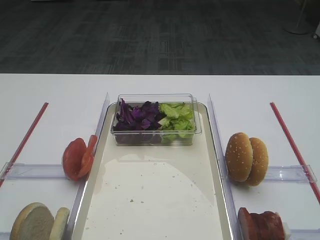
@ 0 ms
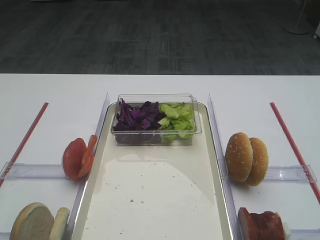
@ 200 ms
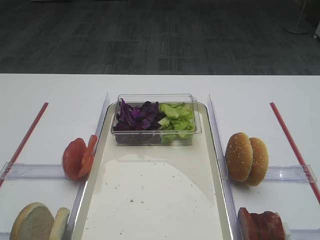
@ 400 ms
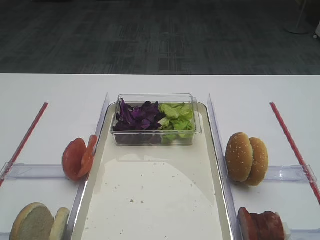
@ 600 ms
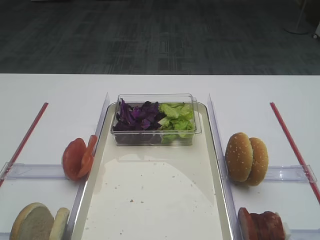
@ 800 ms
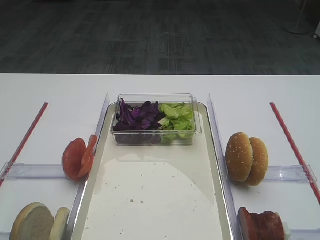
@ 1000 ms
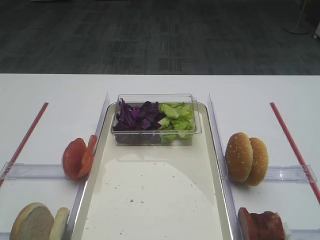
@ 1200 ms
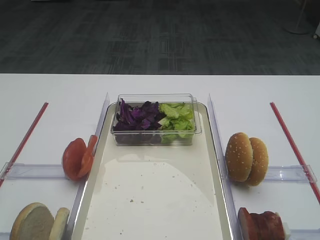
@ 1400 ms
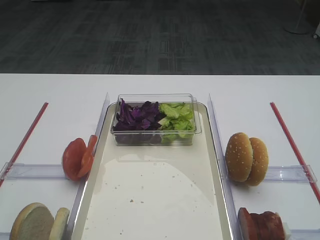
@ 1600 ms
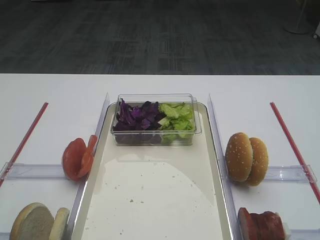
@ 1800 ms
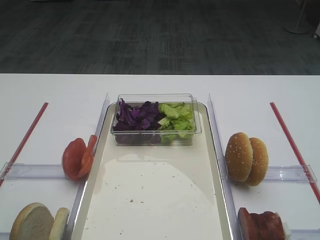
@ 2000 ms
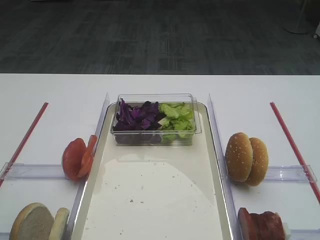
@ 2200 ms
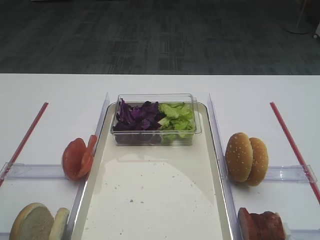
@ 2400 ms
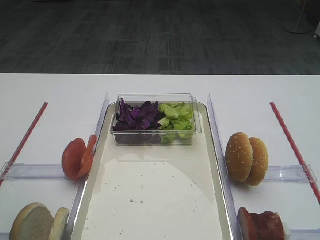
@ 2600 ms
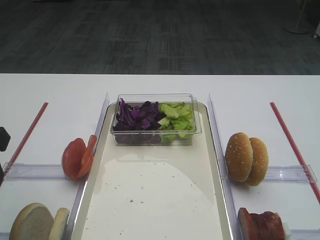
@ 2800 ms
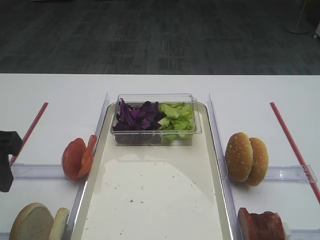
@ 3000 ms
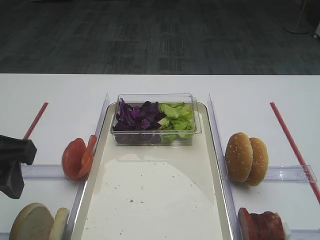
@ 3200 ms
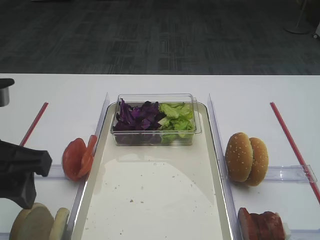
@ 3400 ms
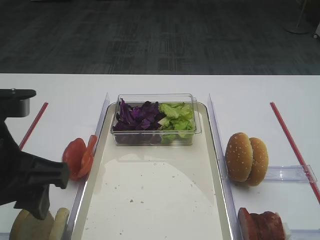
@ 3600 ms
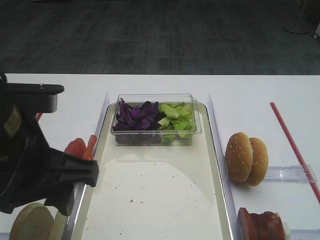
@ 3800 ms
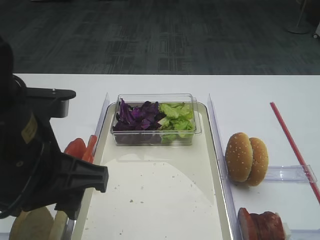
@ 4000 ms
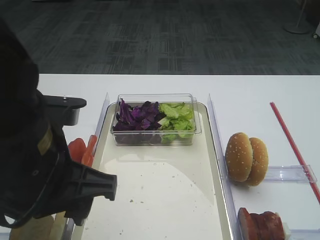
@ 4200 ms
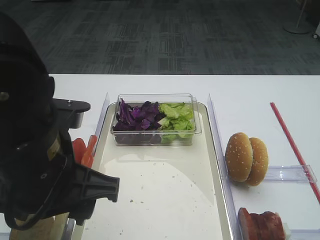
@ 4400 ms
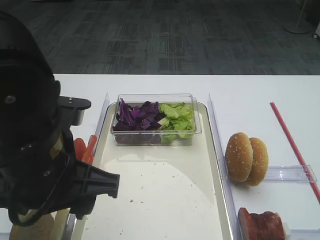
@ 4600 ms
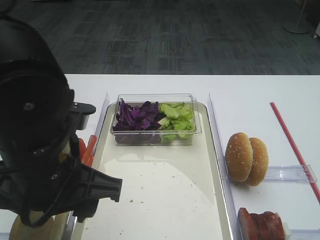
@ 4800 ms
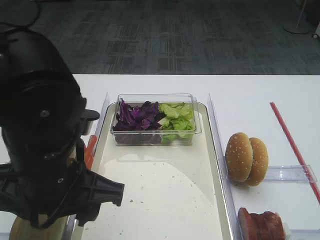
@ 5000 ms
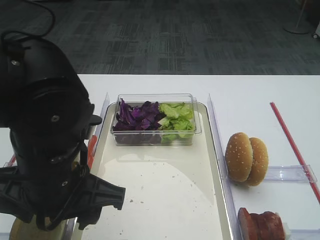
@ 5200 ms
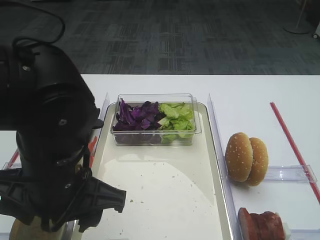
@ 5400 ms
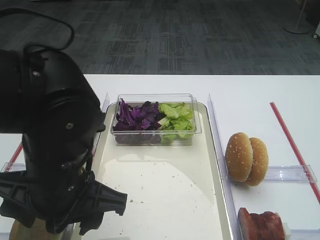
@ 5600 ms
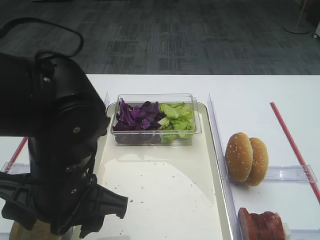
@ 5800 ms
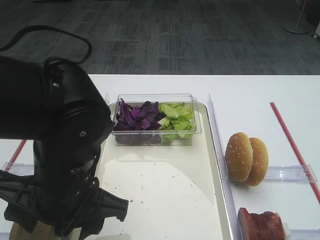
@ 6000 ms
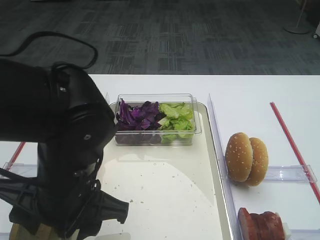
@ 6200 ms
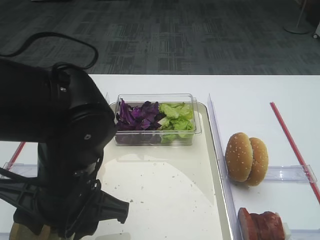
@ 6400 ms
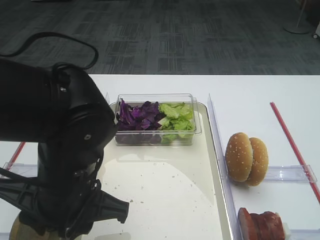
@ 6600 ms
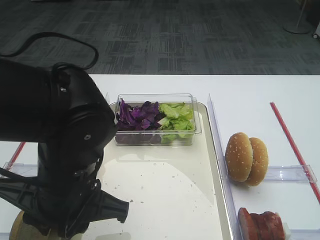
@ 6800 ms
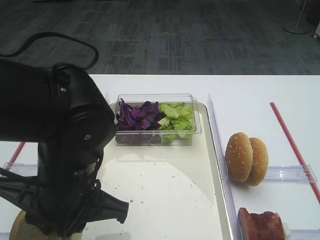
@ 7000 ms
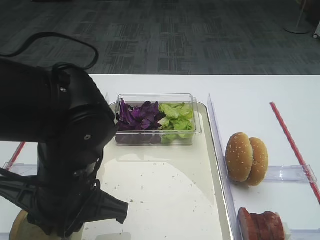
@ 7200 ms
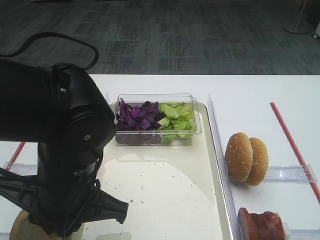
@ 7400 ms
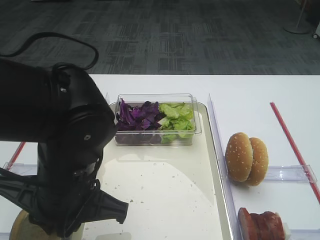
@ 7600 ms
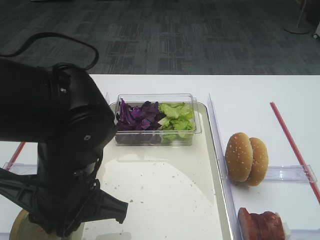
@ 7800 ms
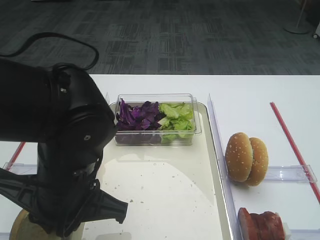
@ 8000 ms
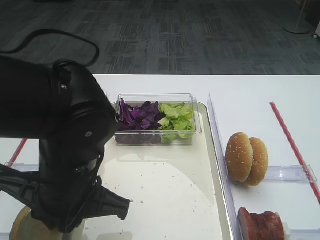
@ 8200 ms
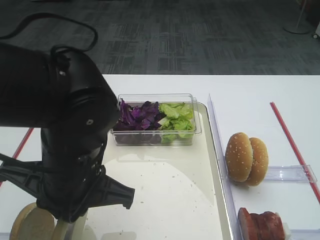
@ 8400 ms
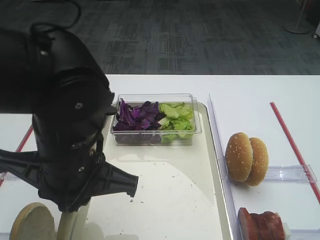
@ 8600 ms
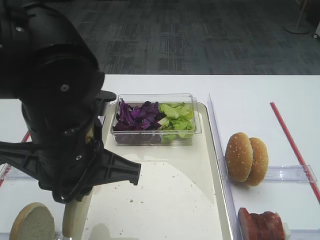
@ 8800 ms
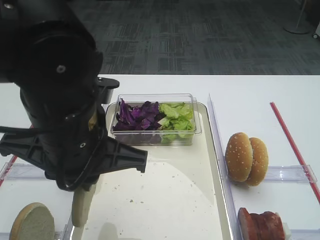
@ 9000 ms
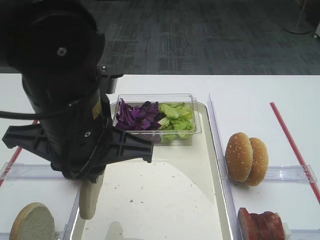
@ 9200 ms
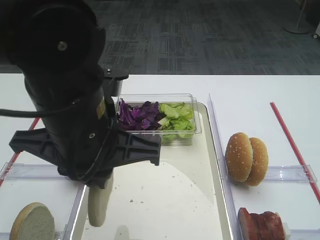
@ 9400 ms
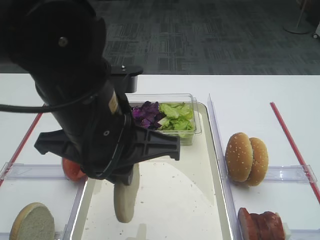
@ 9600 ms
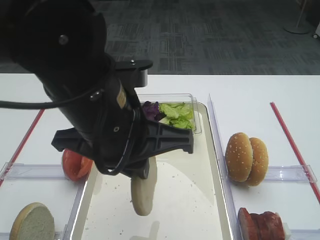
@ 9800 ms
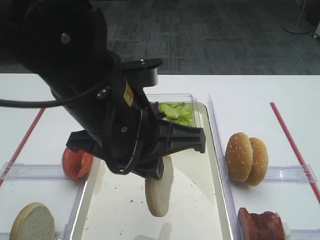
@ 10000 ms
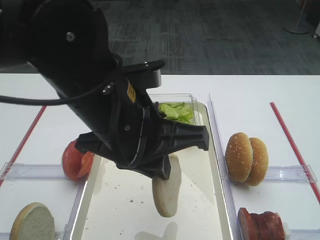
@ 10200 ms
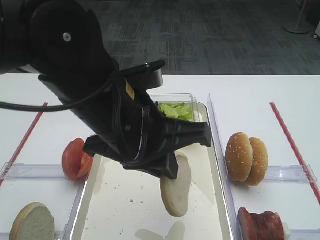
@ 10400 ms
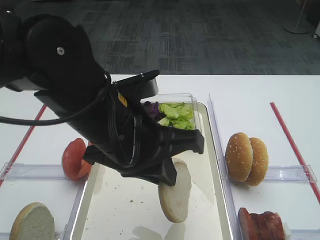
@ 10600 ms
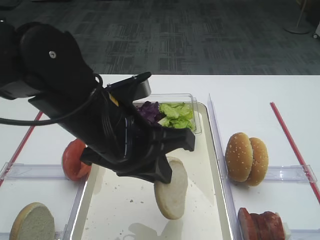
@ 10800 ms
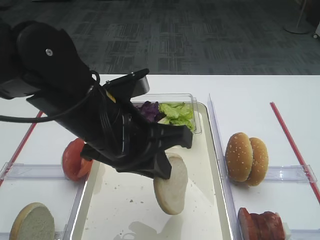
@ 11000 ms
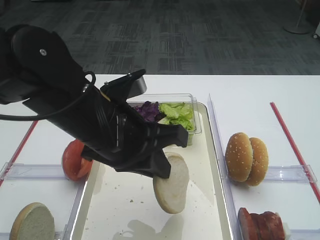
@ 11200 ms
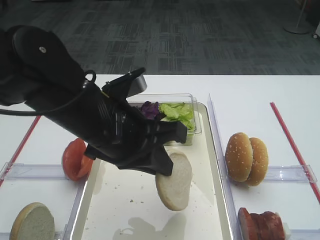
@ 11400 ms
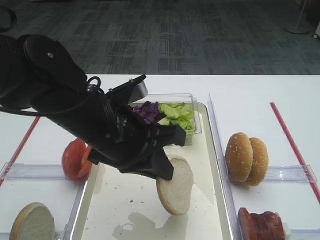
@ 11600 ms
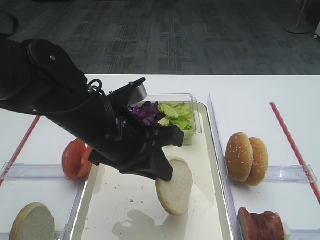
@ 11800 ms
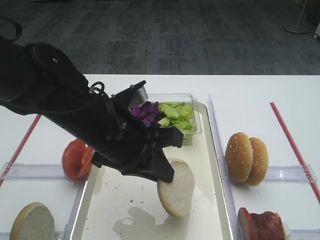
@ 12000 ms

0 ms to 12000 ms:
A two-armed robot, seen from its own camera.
Step, 0 ms to 9000 ms: Pick up the bread slice with the left gripper.
1600 ms to 3000 ms: The left gripper moves forward and to the right, roughly 10 cm.
3000 ms to 4400 ms: The left gripper travels to the right by about 10 cm.
4400 ms to 6000 ms: The left gripper shifts about 5 cm downward.
6000 ms to 7600 ms: The left gripper closes.
7600 ms to 9000 ms: The left gripper shifts approximately 5 cm upward.
10400 ms to 12000 ms: The left gripper is displaced downward by about 5 cm.

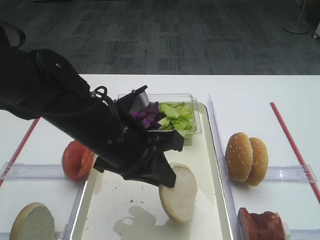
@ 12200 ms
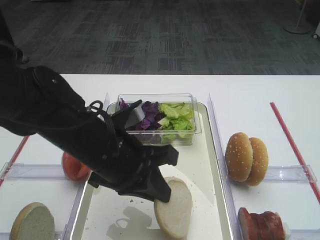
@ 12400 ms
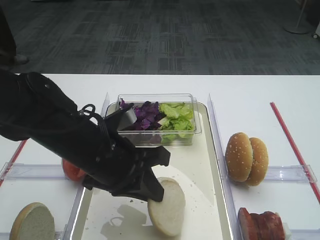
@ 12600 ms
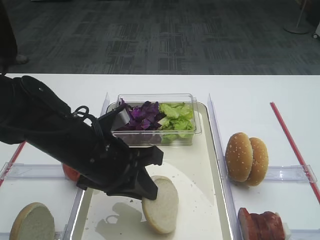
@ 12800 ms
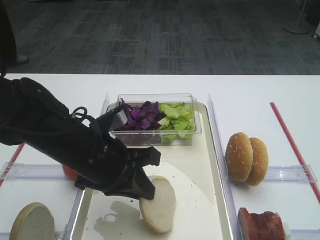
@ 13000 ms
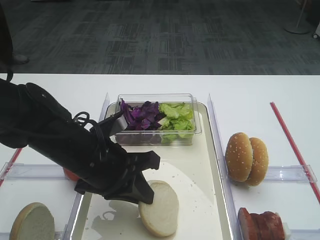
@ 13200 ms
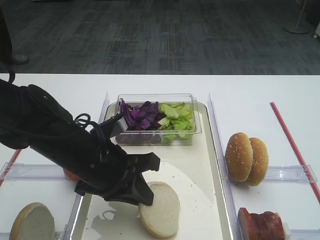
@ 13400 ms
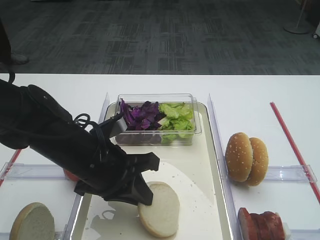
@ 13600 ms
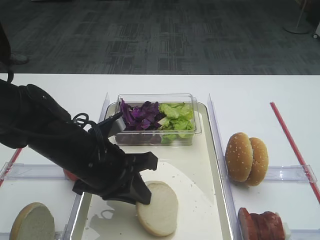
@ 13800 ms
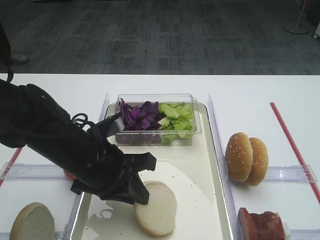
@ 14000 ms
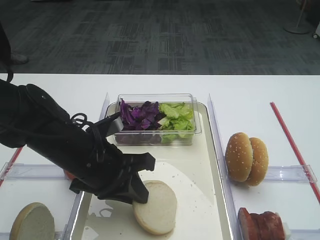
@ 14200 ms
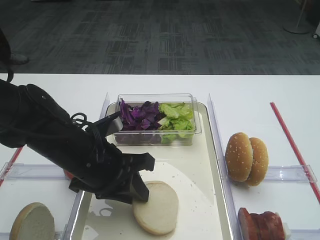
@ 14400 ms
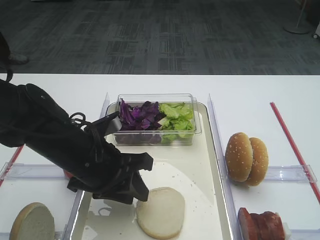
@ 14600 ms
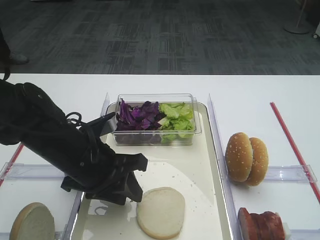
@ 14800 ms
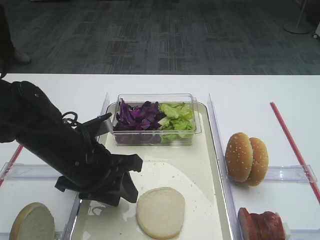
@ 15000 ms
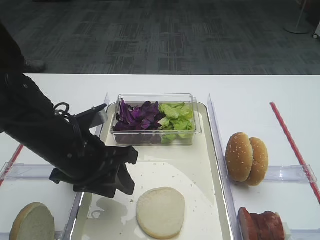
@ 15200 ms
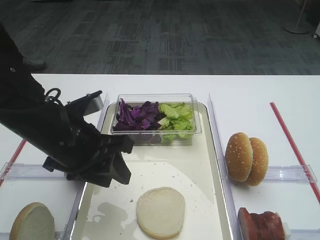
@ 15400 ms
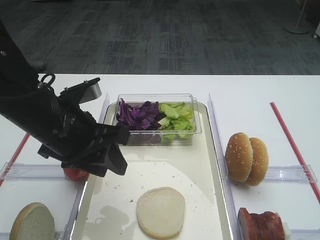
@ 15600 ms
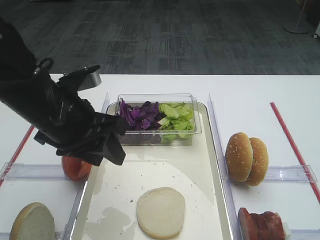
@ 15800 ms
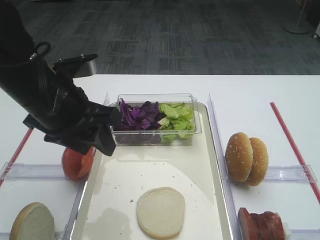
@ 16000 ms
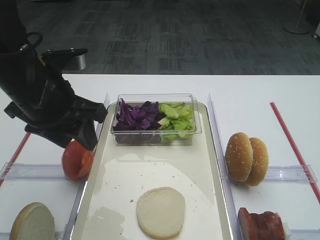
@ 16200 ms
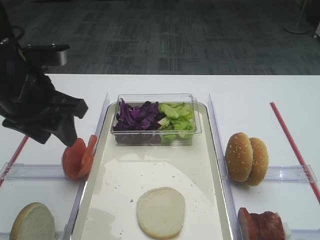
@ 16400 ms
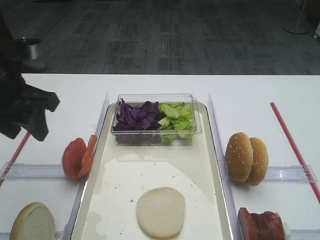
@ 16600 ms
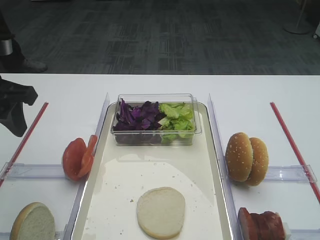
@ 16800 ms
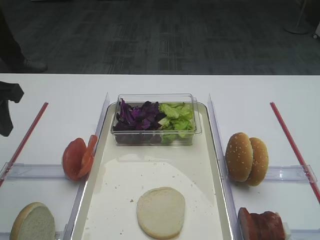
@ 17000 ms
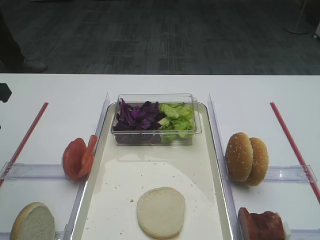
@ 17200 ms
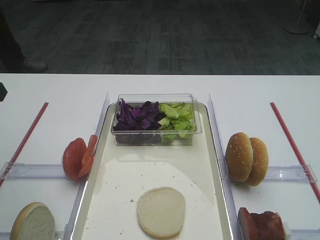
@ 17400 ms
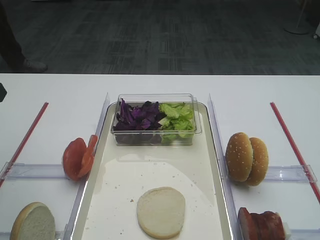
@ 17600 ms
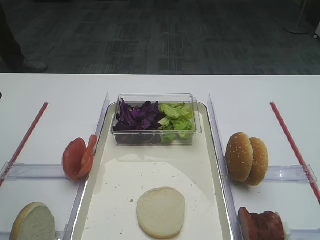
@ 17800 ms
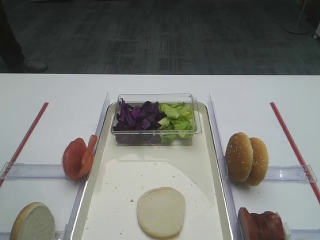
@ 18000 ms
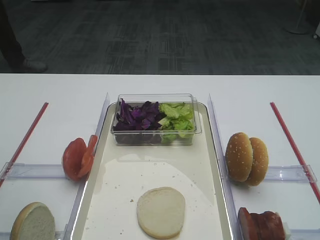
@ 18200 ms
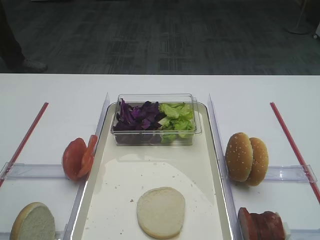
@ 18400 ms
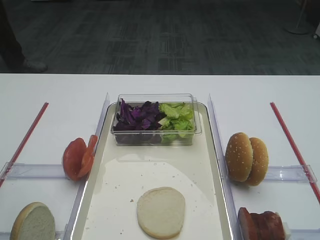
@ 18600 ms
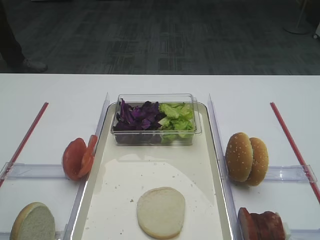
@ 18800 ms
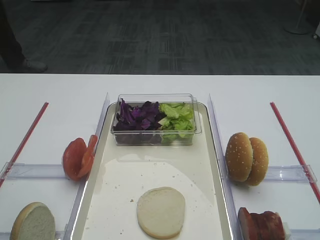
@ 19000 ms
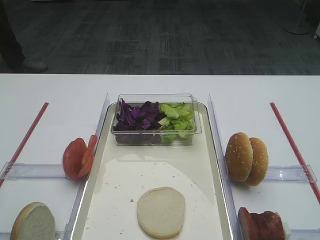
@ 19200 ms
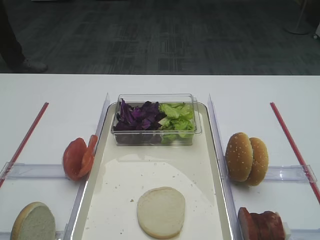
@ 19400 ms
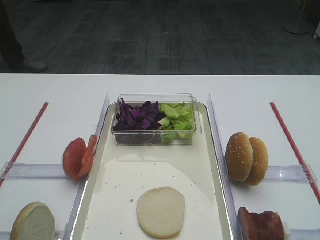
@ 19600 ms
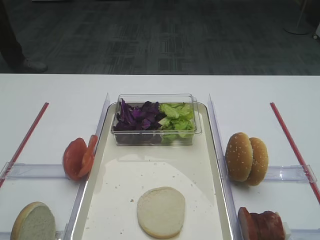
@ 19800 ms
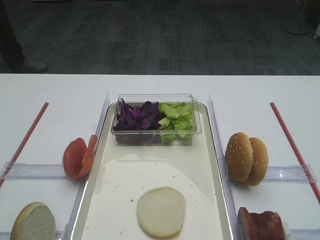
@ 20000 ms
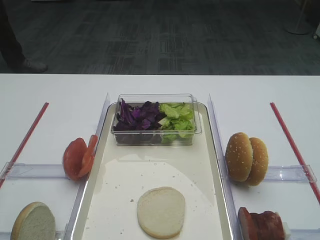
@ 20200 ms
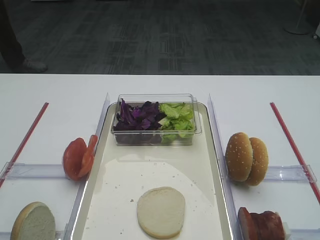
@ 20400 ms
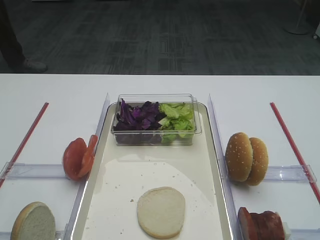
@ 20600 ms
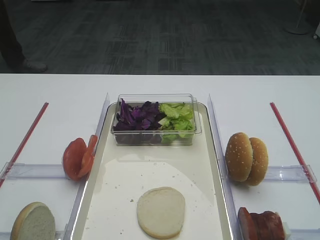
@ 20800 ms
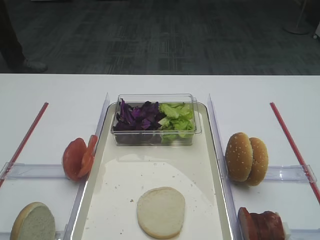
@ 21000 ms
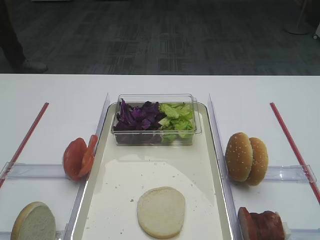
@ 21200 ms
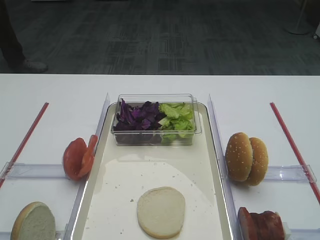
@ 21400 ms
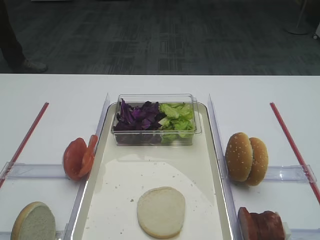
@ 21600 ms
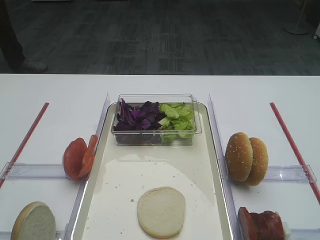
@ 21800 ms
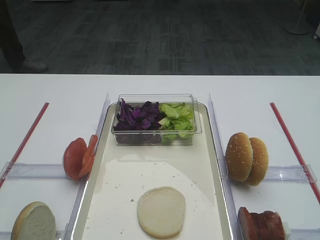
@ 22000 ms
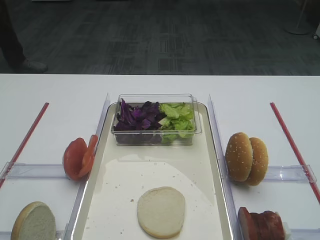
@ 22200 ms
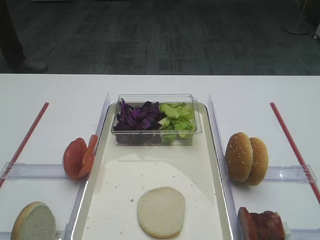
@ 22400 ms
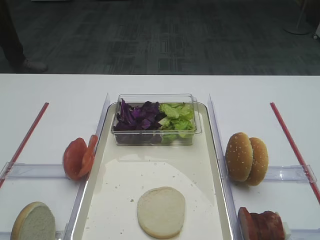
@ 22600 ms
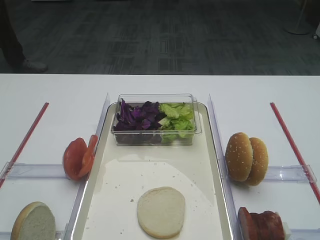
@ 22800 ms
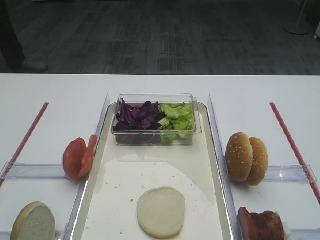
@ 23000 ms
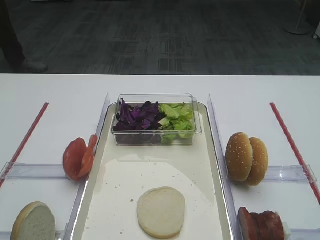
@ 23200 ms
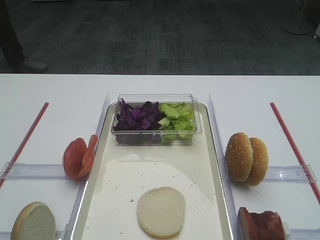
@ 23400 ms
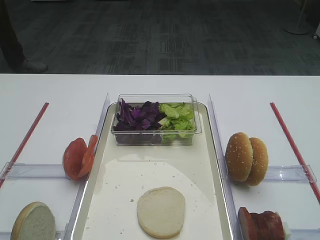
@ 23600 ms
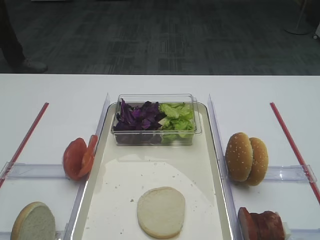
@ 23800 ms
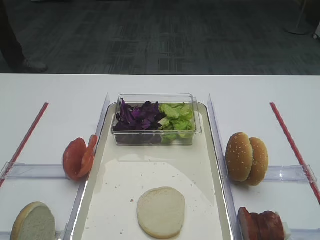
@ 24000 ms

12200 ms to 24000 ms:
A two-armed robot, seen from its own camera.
Step, 12200 ms to 15600 ms: Place the bread slice on the tray with the left gripper.
12200 ms to 13600 ms: The left gripper shifts by approximately 5 cm.
13600 ms to 15200 ms: The left gripper opens its fingers.
15200 ms to 16600 ms: The left gripper moves to the left and upward, some 15 cm.
16600 ms to 18200 ms: The left gripper shifts roughly 10 cm backward and to the left.
